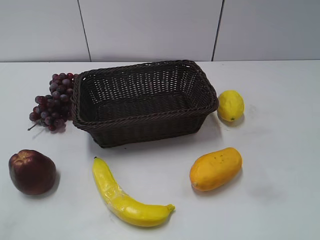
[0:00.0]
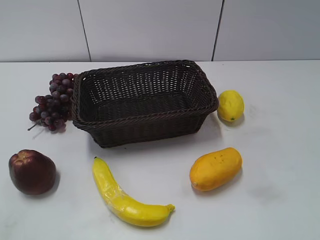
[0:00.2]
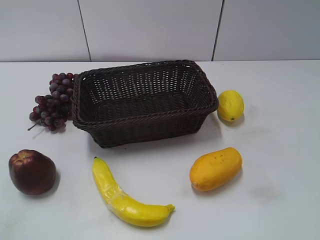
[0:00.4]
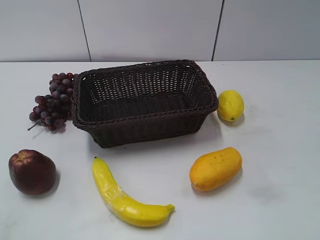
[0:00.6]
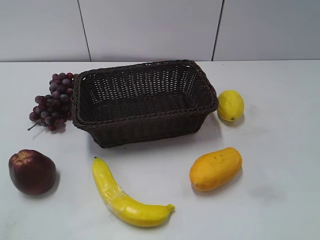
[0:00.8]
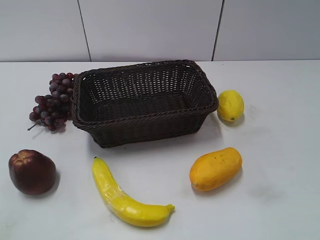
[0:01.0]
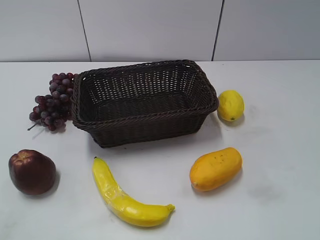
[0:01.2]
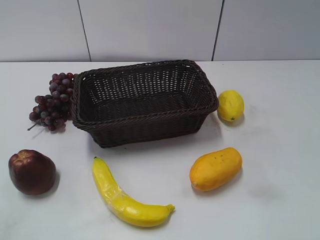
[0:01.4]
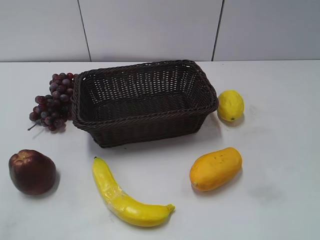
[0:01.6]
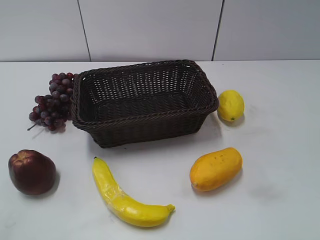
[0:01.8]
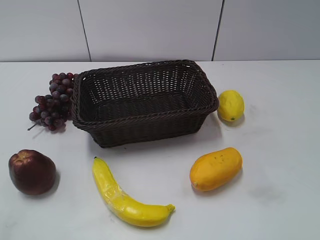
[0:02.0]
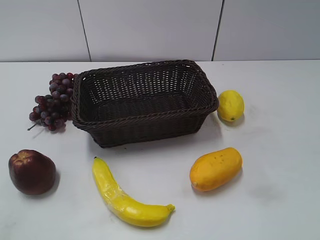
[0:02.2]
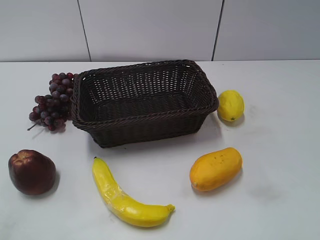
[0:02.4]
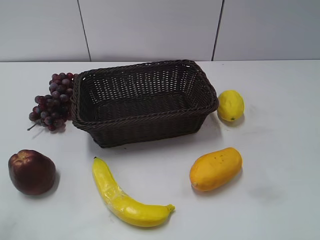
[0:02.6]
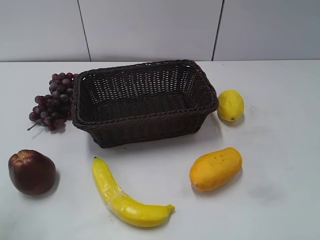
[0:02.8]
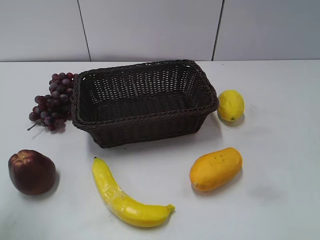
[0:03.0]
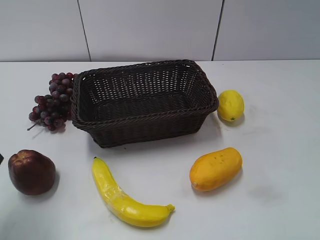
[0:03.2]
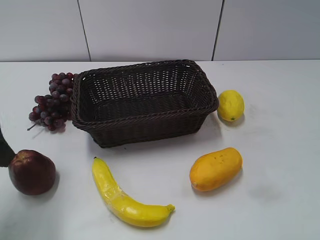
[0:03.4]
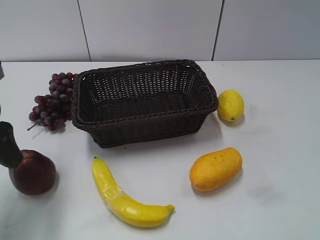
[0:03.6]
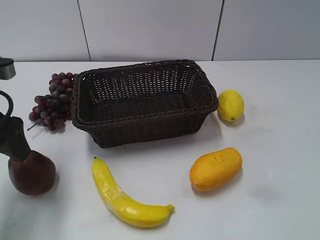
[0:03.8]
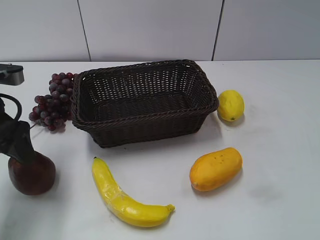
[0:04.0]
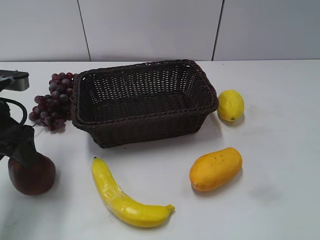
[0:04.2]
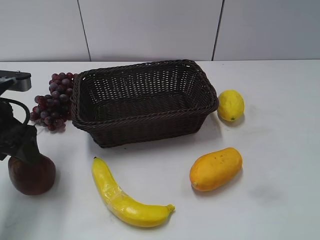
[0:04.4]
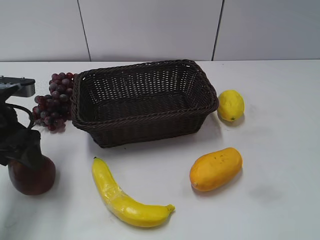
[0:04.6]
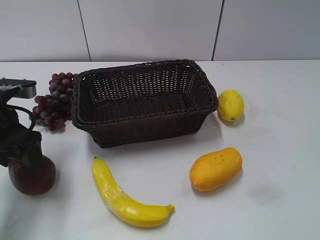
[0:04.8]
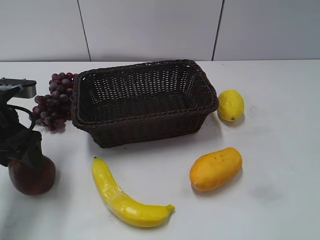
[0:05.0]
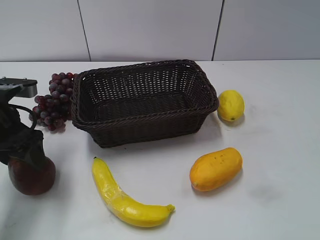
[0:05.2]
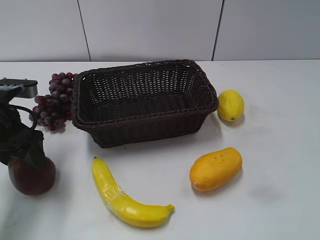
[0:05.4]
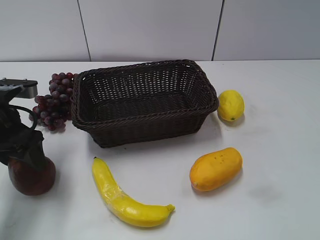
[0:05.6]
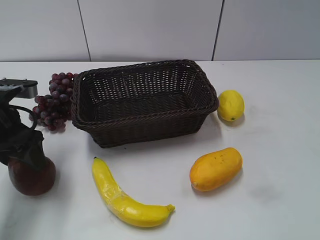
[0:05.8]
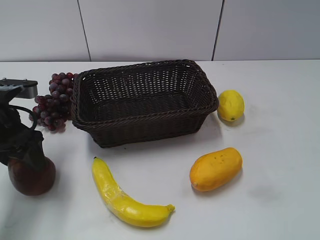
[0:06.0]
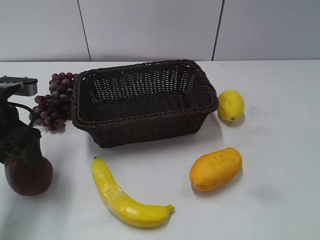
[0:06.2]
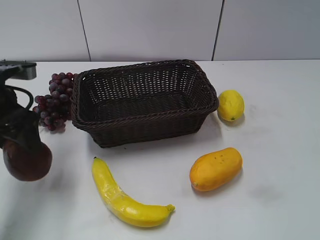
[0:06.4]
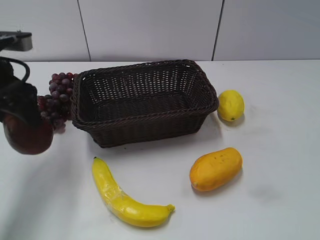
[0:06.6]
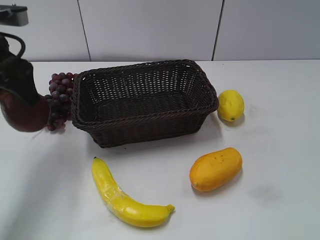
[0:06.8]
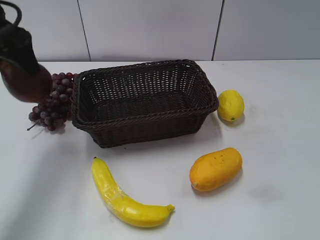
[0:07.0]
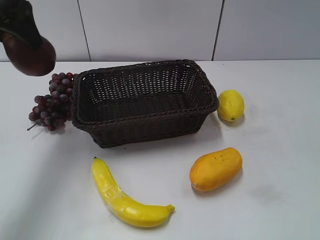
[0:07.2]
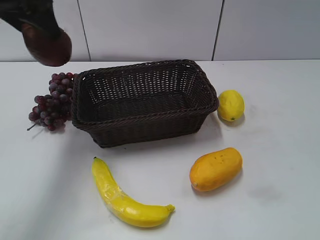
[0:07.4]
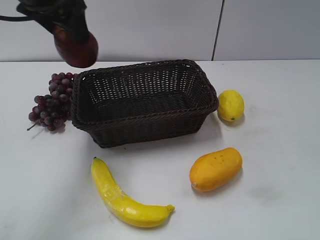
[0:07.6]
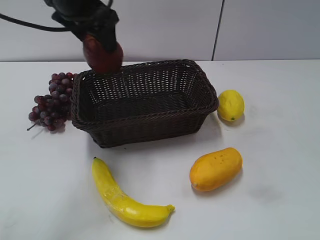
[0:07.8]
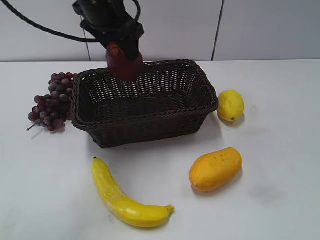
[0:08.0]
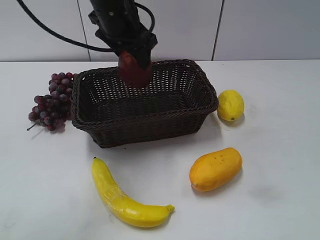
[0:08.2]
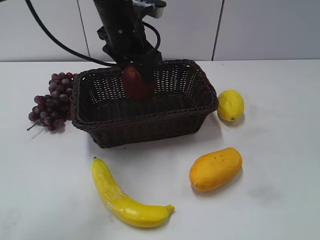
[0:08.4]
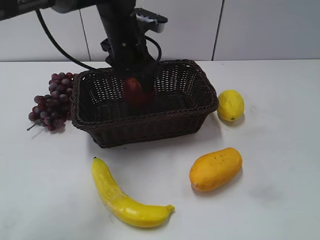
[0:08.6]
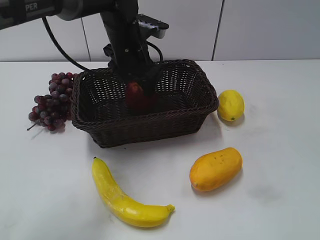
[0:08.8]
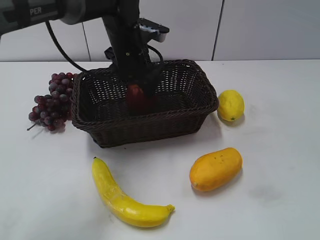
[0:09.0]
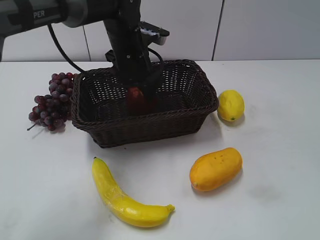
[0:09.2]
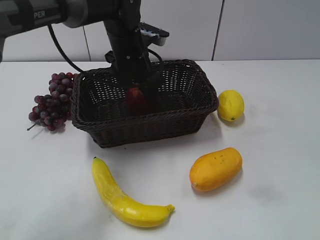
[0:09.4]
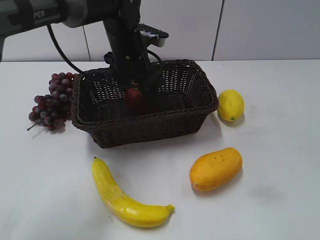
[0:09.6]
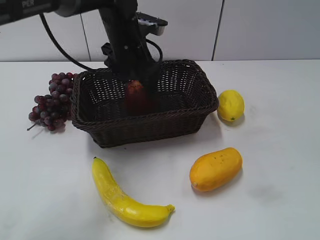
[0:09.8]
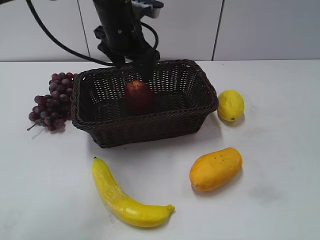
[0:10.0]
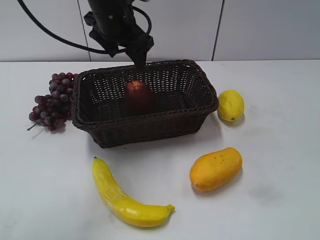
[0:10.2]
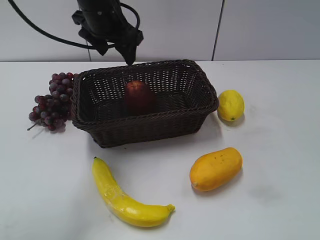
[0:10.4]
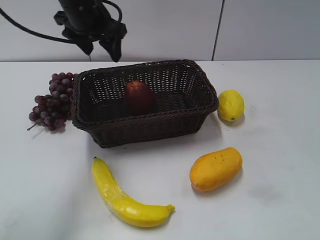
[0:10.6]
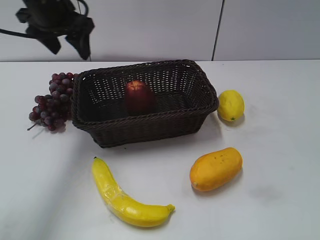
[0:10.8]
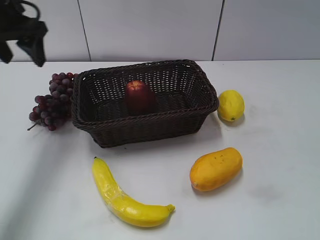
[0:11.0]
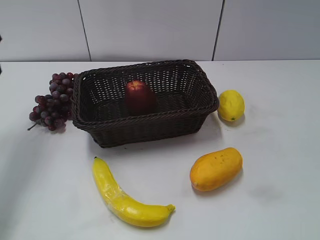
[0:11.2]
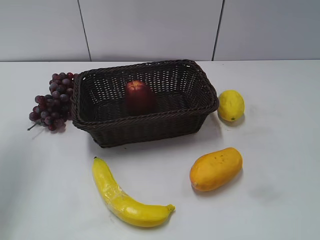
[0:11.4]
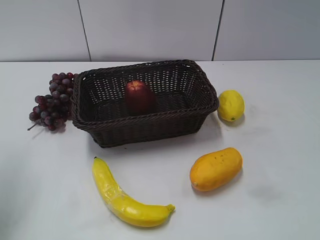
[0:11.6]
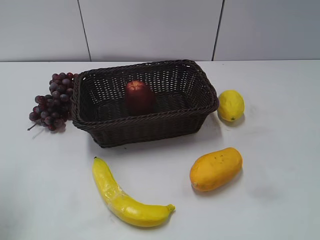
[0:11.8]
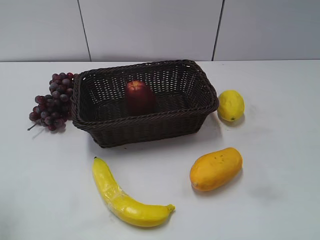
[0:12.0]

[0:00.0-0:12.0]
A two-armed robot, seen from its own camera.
Step, 0:03.2 to 0:05.4: Grasp the apple with left gripper.
Step, 0:05.6 to 0:09.2: Place the apple in the basket with left gripper.
0:01.6 to 0:03.0: The left gripper heads forward, covering about 15 cm.
0:03.0 to 0:04.4: The left gripper shifts about 15 cm forward and downward.
0:04.4 to 0:06.0: The left gripper closes its fingers.
0:06.0 to 0:07.6: The left gripper is displaced upward, forward and to the right by about 20 cm.
0:07.6 to 0:09.0: The left gripper is displaced downward and to the right by approximately 20 cm.
0:09.0 to 0:10.4: The left gripper moves upward and to the left, some 10 cm, and opens up.
0:10.4 to 0:12.0: The left gripper goes about 35 cm backward and to the left.

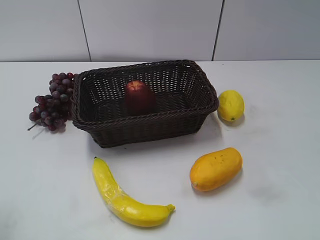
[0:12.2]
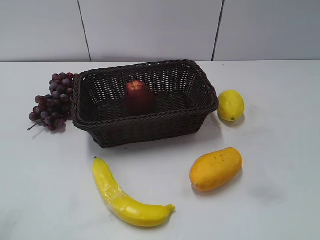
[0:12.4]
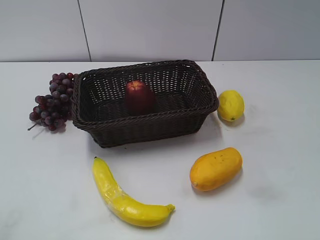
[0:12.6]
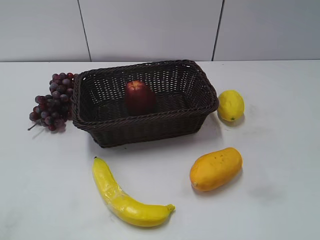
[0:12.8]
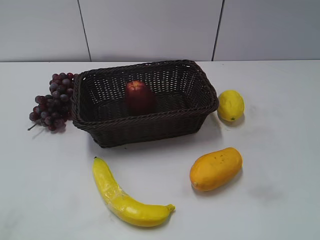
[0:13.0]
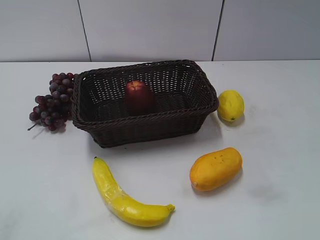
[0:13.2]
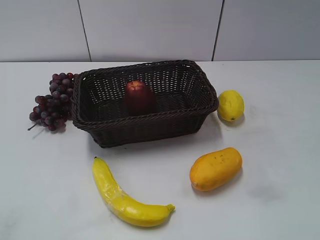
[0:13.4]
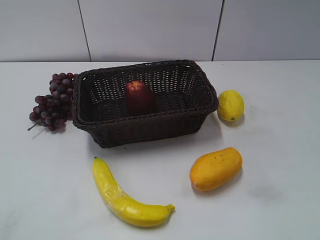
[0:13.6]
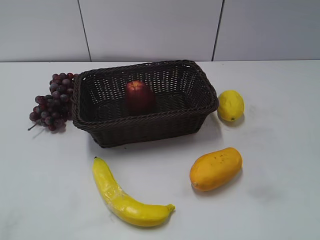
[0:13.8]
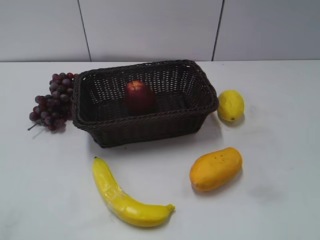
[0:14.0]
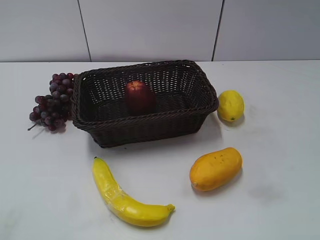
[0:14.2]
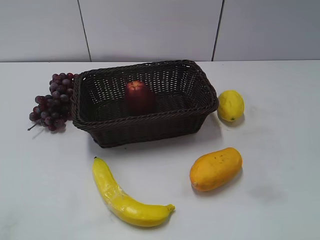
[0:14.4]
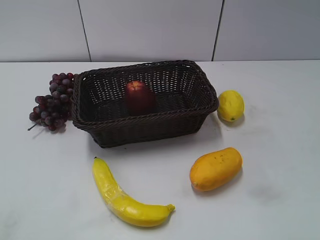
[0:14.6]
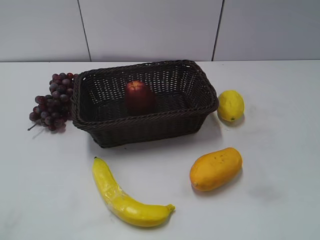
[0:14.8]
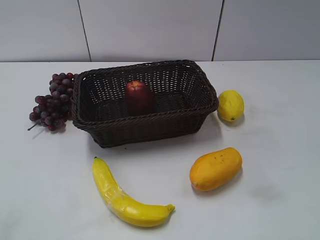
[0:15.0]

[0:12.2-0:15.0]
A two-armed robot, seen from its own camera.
0:13.6 to 0:15.0: Both grippers stay put.
